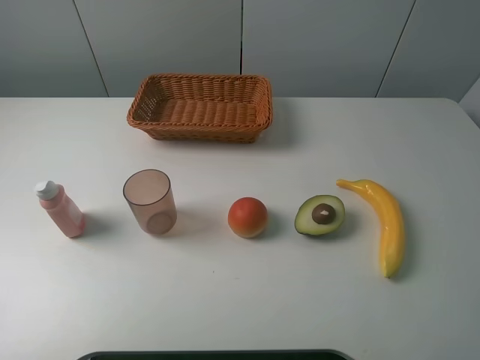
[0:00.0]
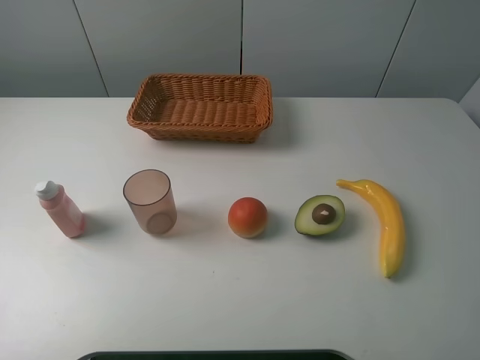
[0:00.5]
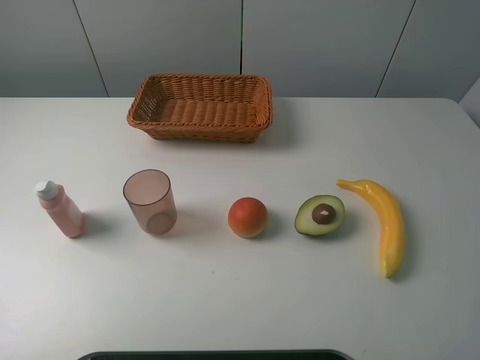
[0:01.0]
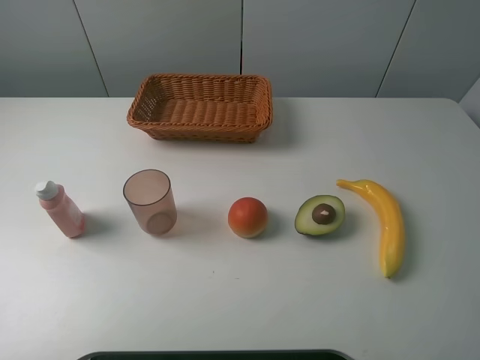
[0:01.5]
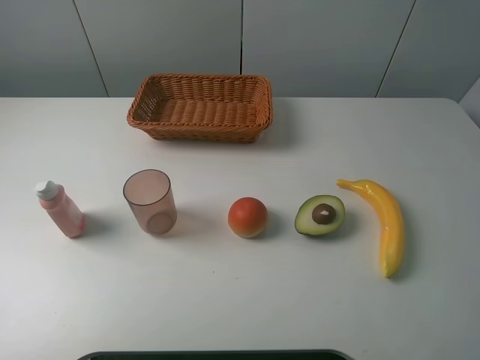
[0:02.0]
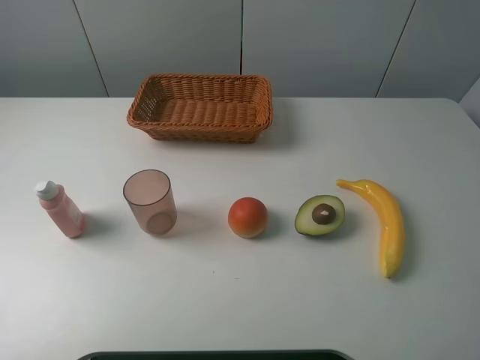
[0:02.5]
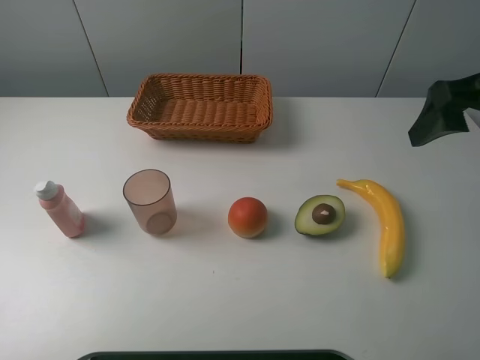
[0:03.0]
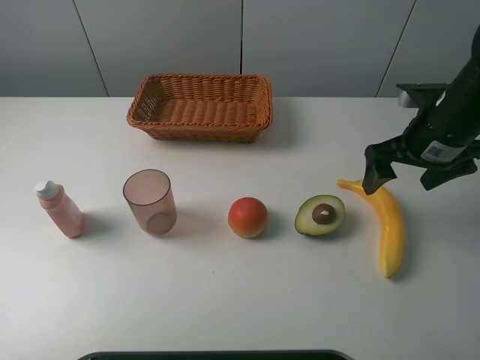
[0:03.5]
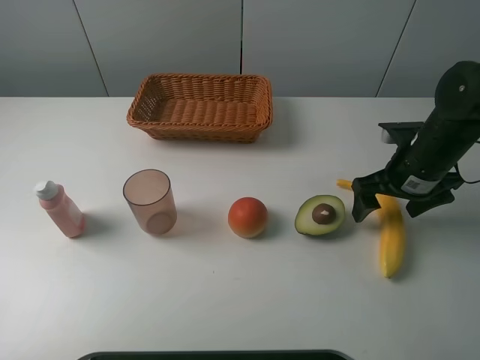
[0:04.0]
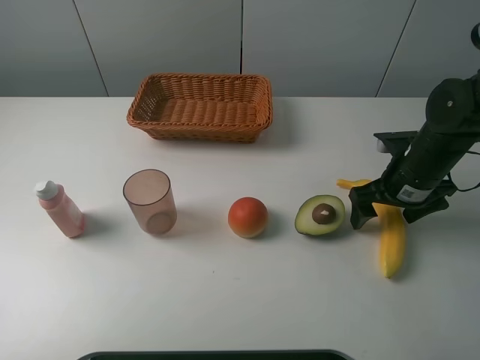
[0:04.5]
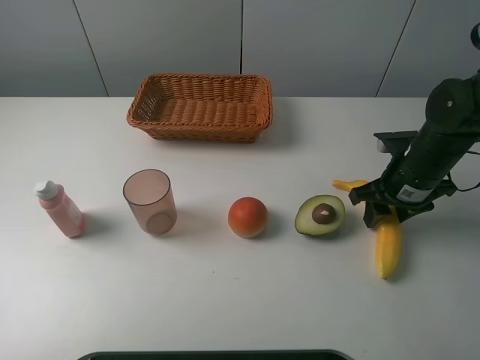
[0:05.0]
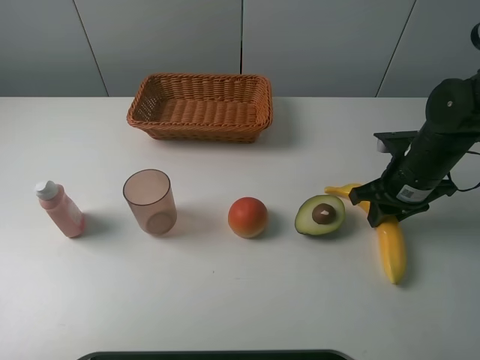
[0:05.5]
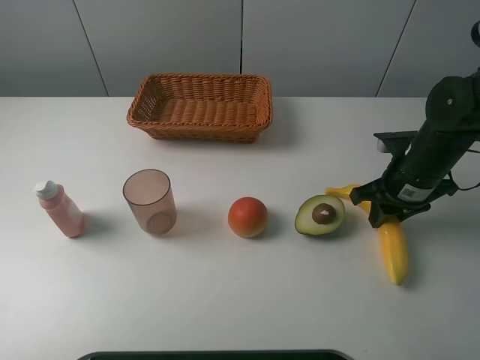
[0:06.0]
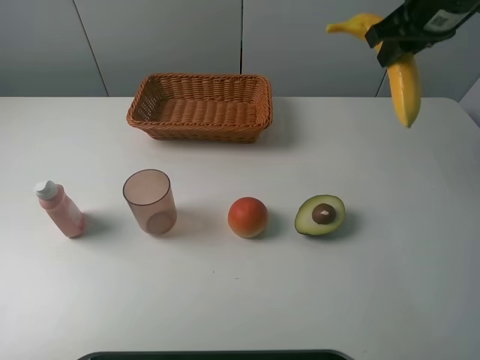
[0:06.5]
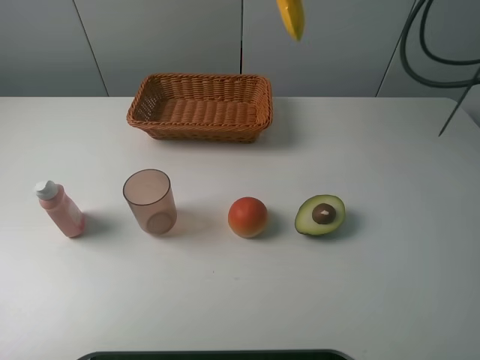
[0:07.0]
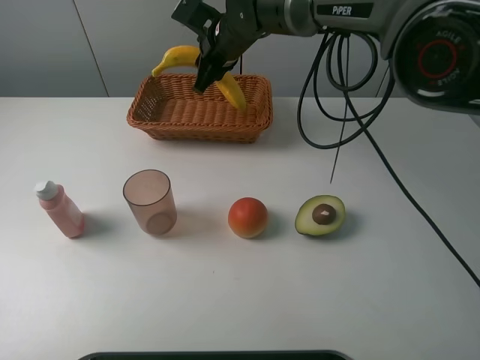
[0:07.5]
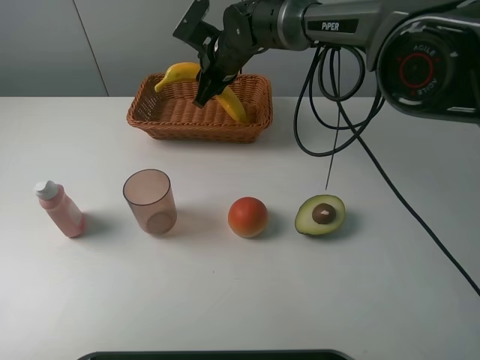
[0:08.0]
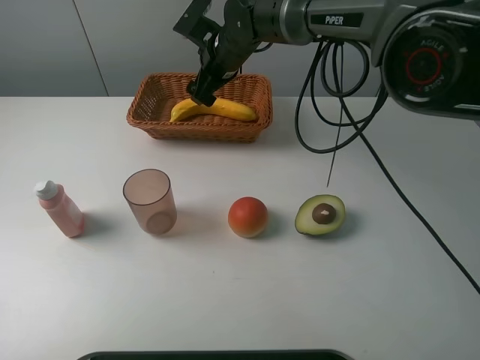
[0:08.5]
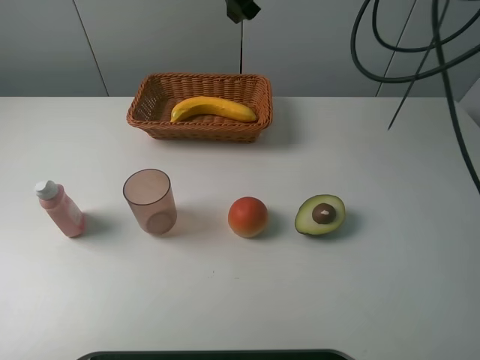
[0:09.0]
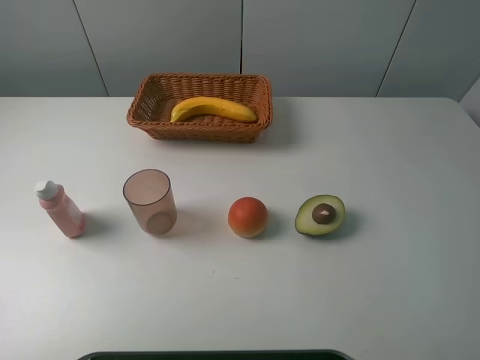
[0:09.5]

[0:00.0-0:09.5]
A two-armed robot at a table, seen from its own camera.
Task of the whole recording: randomly pick up an item from the table and put it in the basket.
Step, 0:00.0 to 0:05.5: Grasp the banana with the right gripper.
Step, 0:06.0 to 0:08.5: Place the banana into the basket with the right gripper.
0:00.0 to 0:02.0: The two grippers keep their place.
0:02.0 to 0:04.0: The right gripper heads forward and downward, covering about 30 cm.
0:04.0 to 0:05.5: The right gripper closes its fingers.
0:05.5 to 0:07.5: The right gripper moves to the left and forward, roughly 30 cm.
0:07.5 to 0:09.5: The right gripper goes some 40 cm upward, to the right and backward, and opens.

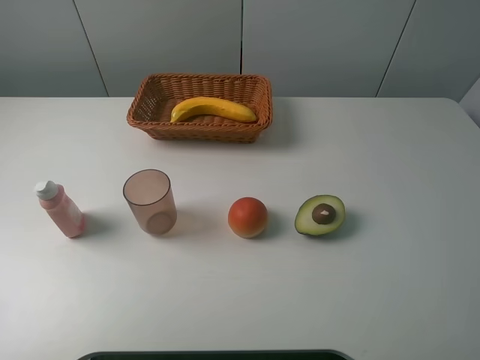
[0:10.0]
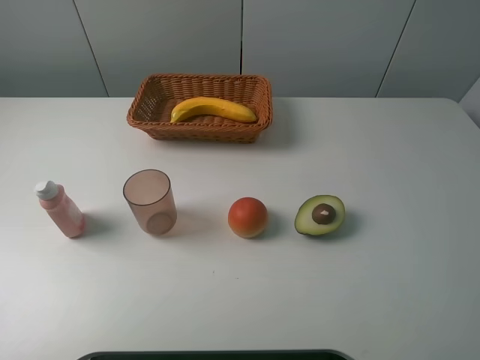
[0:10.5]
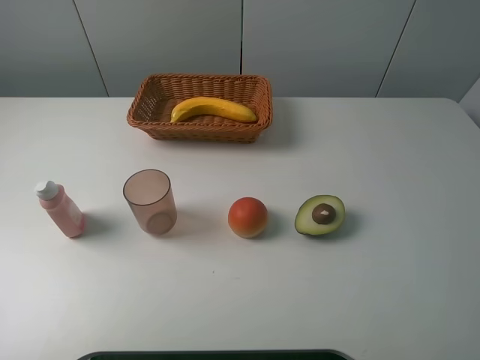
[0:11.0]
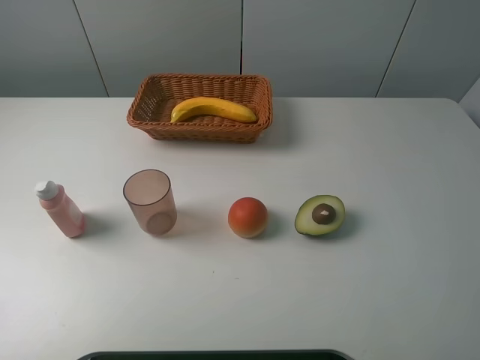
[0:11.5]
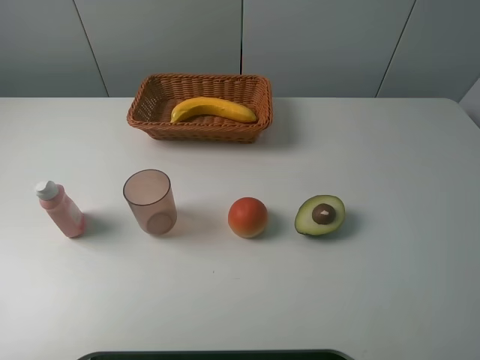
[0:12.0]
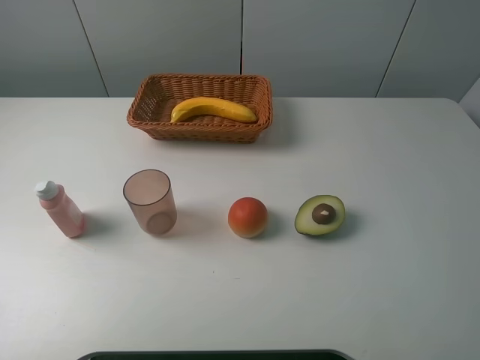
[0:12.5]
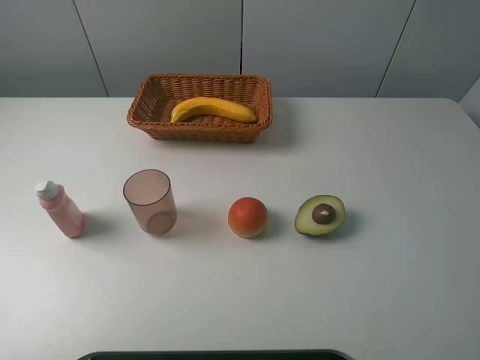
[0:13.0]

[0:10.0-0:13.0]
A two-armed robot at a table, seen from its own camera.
Task of the whole recording: randomly pick up an item from the table and put it in the basket.
0:11.5 to 0:13.0: Neither gripper changes place.

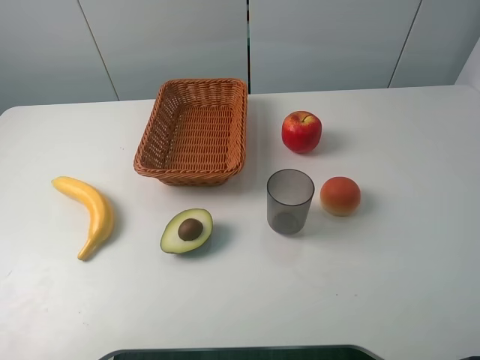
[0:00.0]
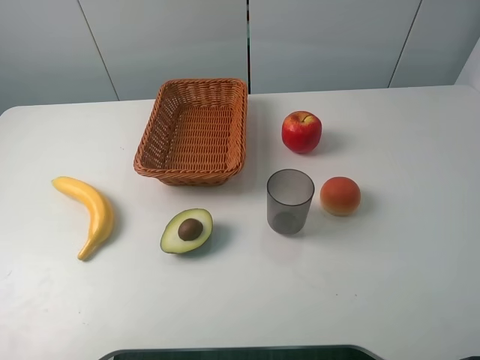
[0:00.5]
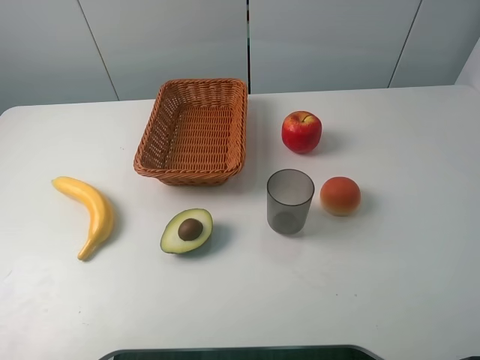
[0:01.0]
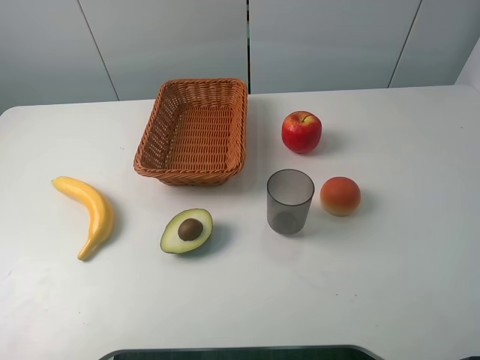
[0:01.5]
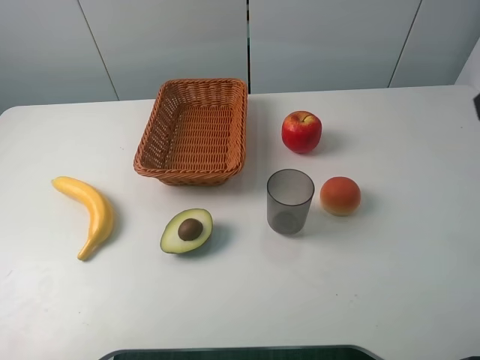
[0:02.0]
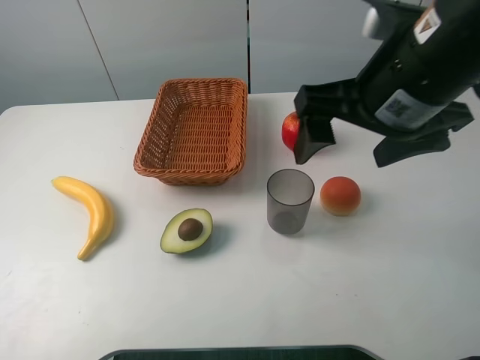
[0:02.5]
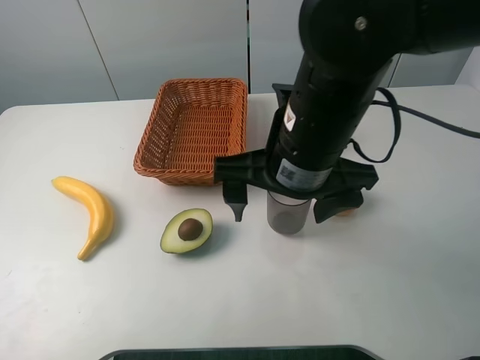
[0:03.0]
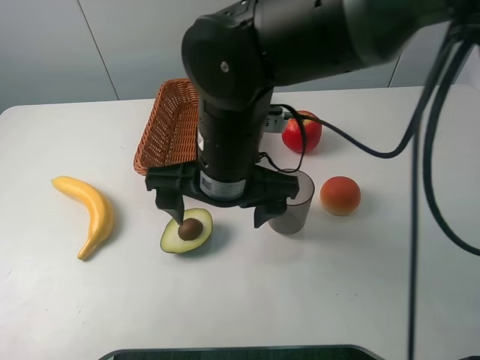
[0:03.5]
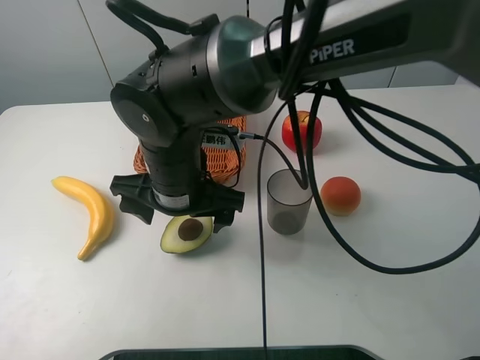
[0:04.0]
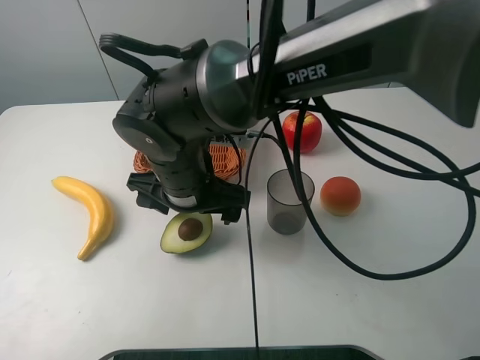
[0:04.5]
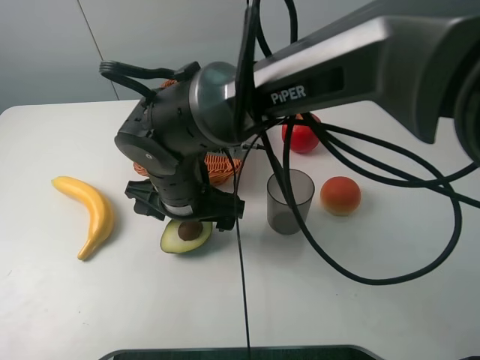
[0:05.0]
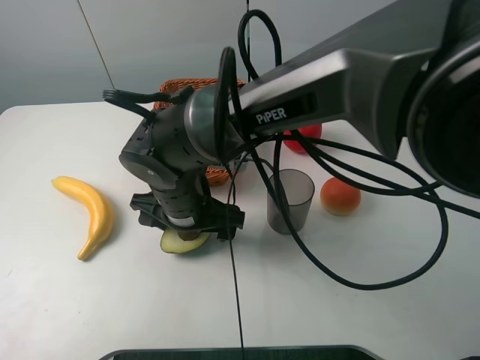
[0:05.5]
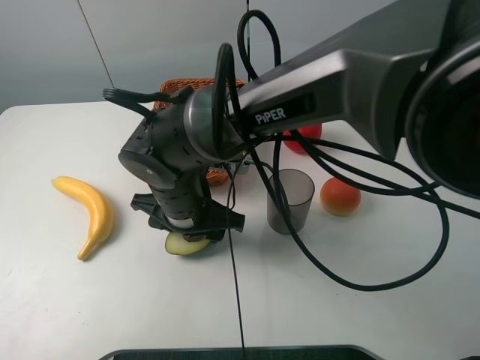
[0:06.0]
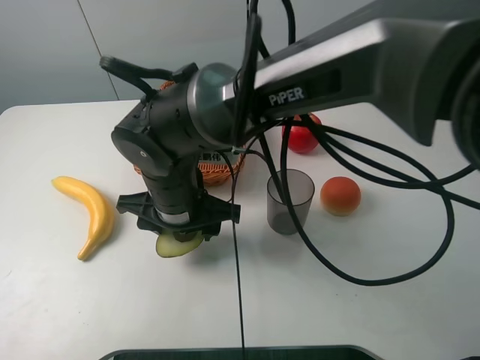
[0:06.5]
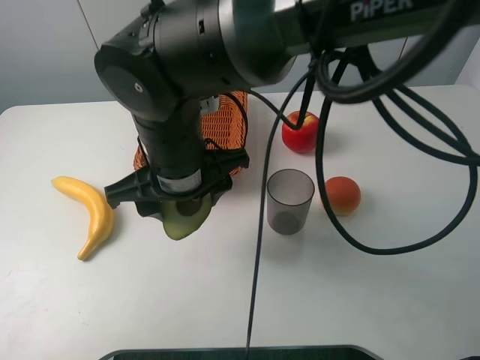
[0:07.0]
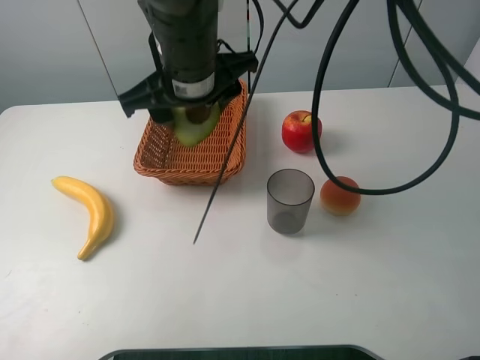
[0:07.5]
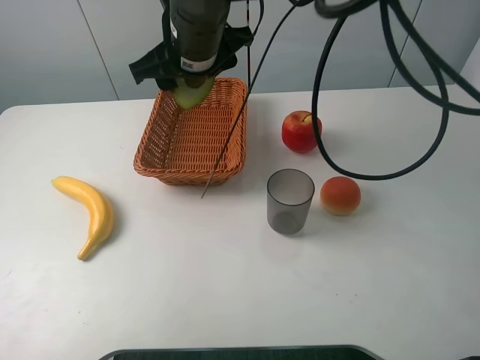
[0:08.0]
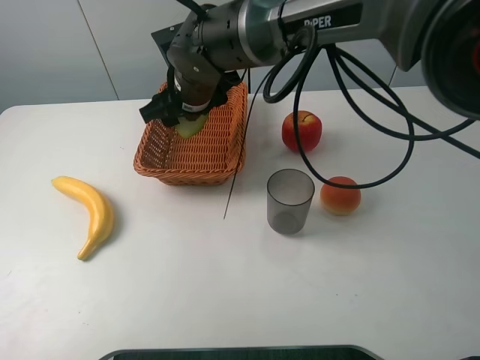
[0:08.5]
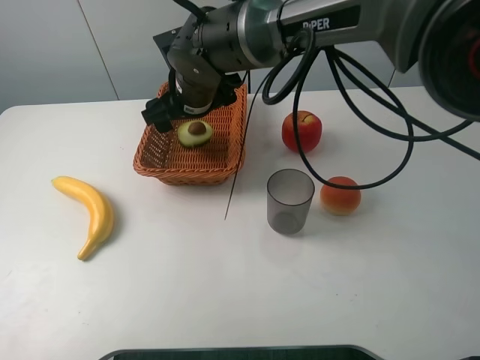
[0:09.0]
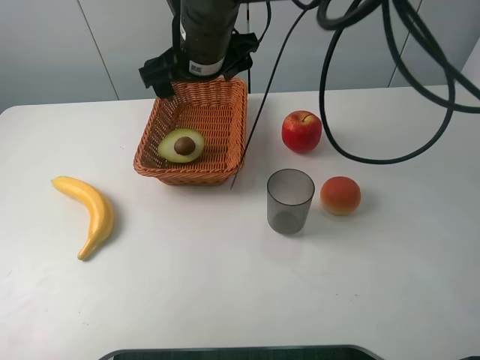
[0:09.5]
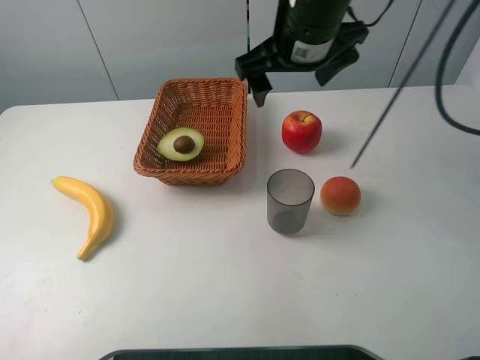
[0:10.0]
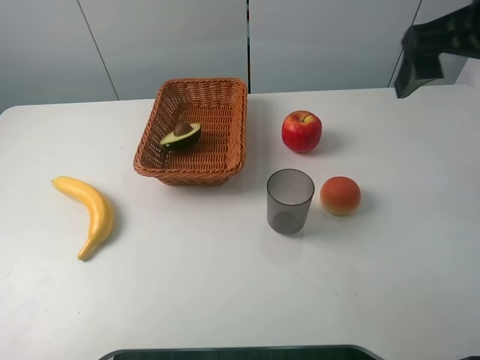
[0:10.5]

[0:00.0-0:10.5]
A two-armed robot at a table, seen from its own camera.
Task of the whole recording: randomly pick up an item from the table and put it in the basket.
Step, 0:00.0 to 0:05.5: Grasp the avocado with the right gripper.
Step, 0:06.0 to 0:09.0: Place the avocado into the basket with the right gripper.
0:02.0 to 0:04.0: The right gripper shifts roughly 40 cm to the left and downward.
0:04.0 to 0:06.5: The right gripper closes up.
0:06.5 to 0:08.5: The right gripper goes about 15 cm forward.
0:08.5 to 0:10.5: The right gripper heads to the right, upward and backward, covering about 35 cm, and opens its fingers.

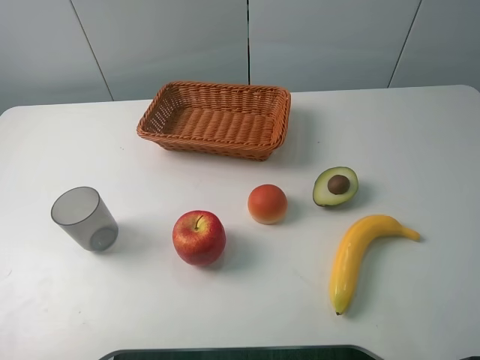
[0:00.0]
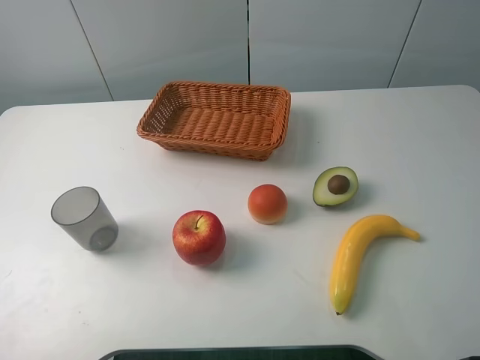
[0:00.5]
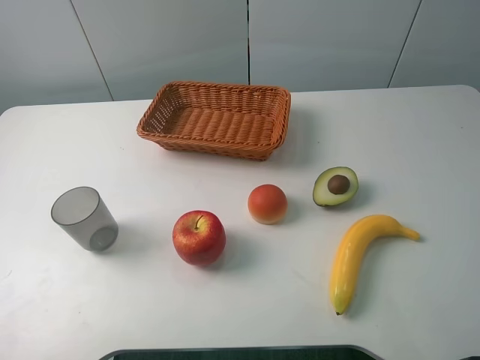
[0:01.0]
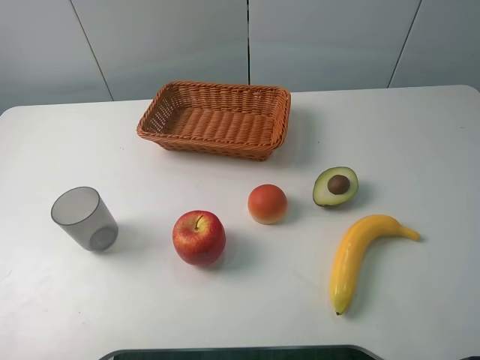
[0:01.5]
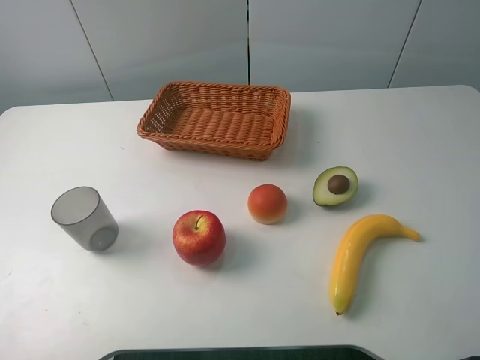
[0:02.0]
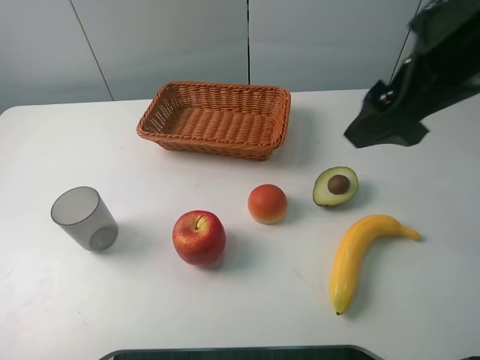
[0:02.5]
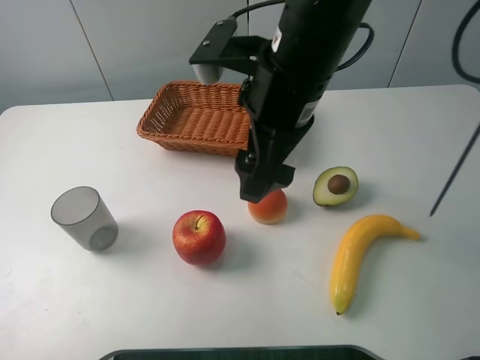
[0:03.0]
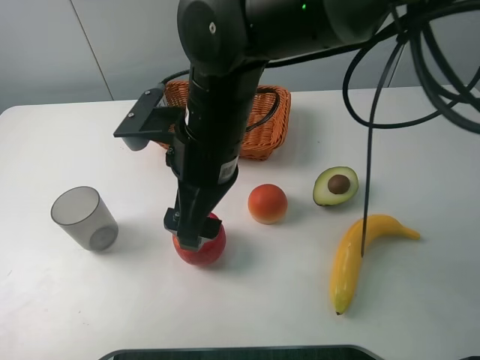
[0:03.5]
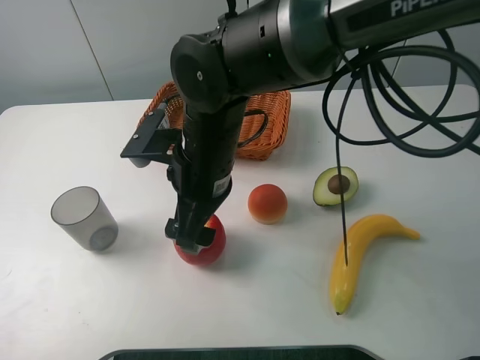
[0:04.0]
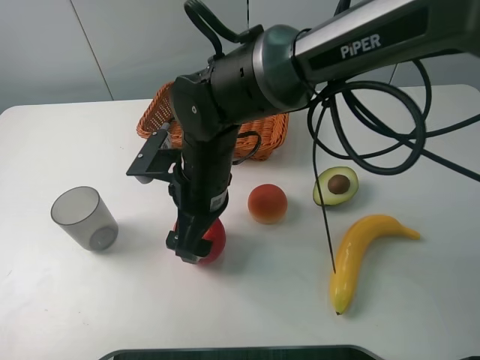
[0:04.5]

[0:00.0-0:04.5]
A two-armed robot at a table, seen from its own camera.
Task of the whole recording: randomly pick up an item from the table and put it in the basket.
0:02.0 to 0:04.5: The right gripper is displaced to the left, downward and forward by some 40 cm.
